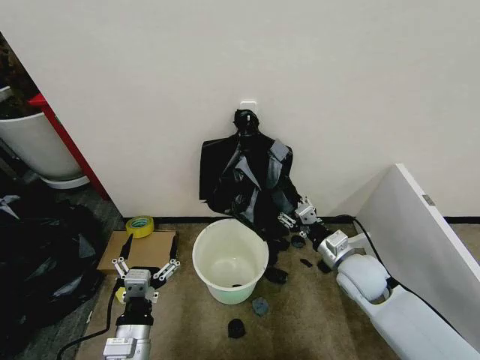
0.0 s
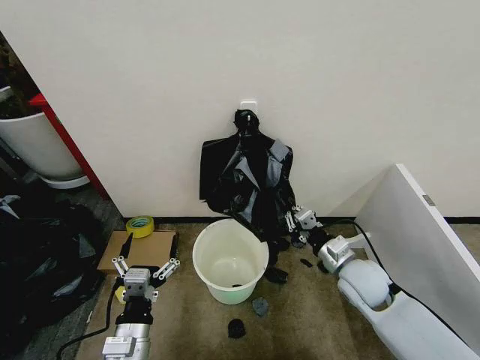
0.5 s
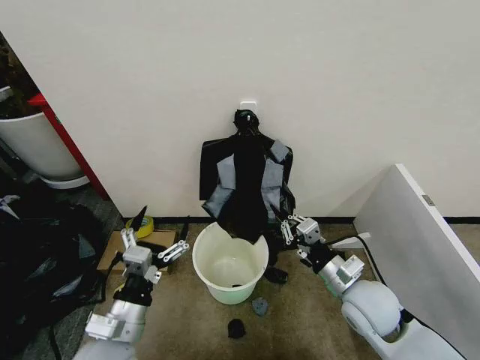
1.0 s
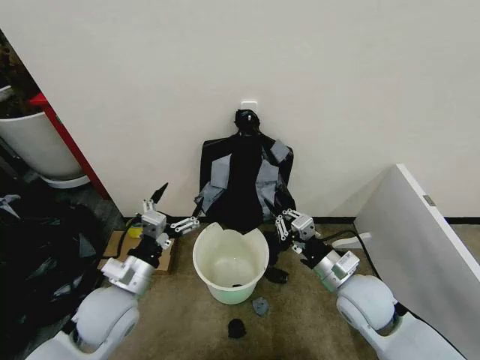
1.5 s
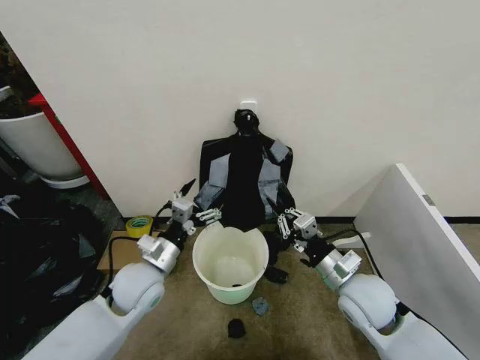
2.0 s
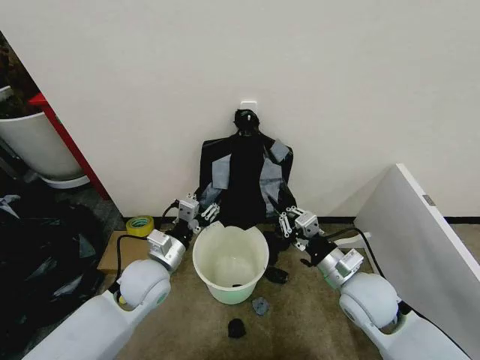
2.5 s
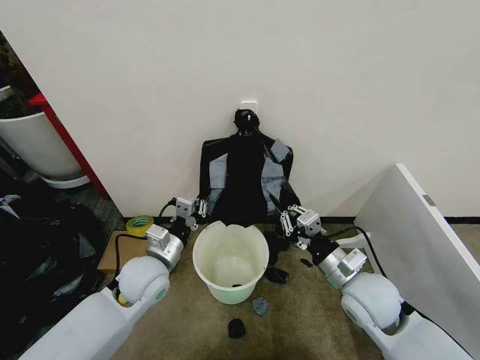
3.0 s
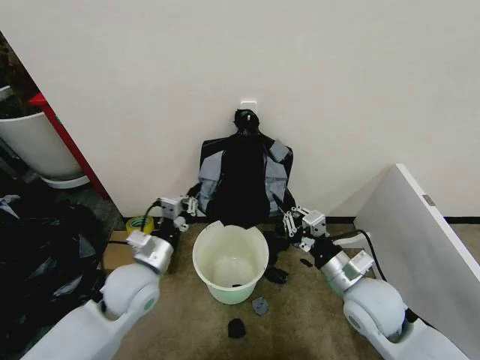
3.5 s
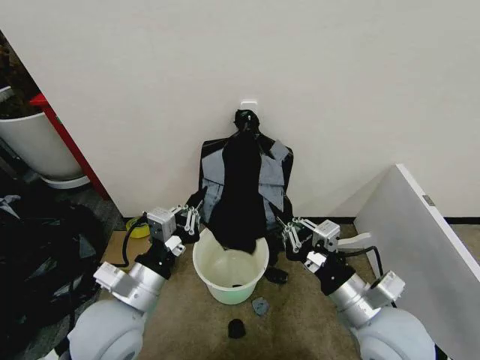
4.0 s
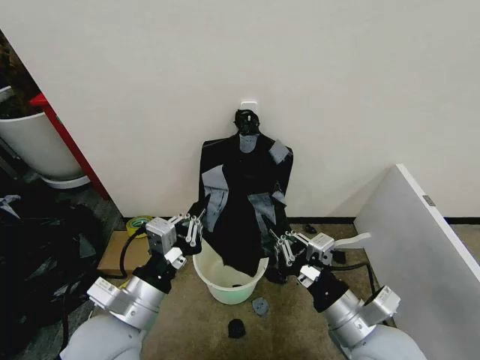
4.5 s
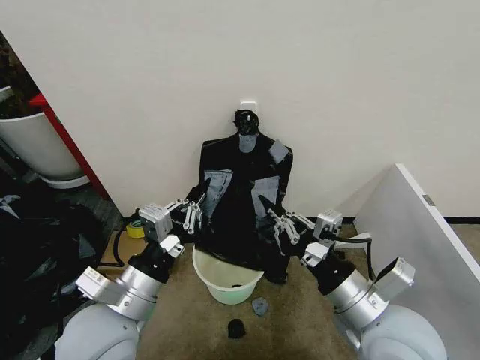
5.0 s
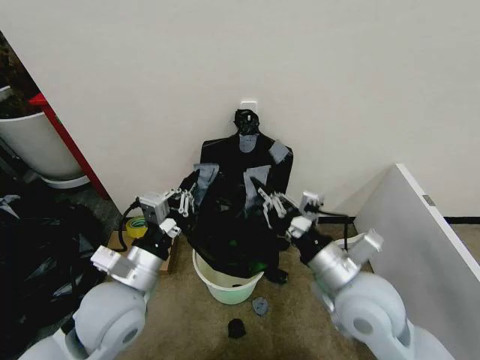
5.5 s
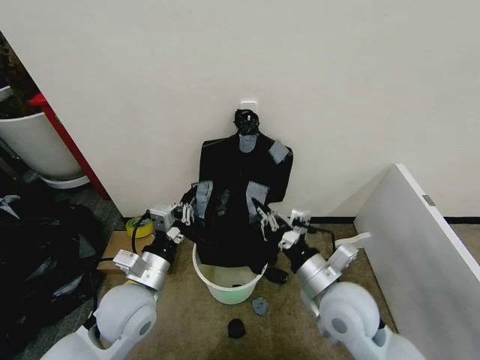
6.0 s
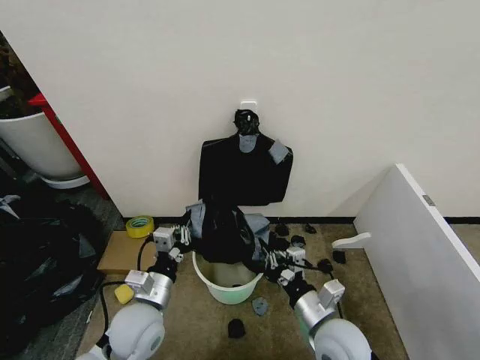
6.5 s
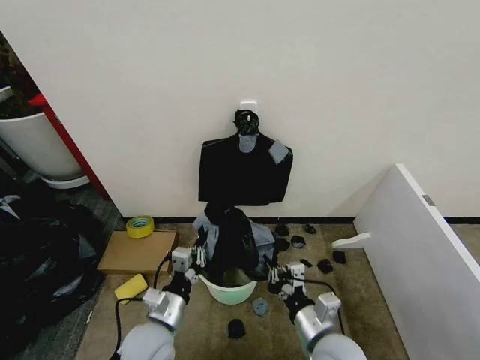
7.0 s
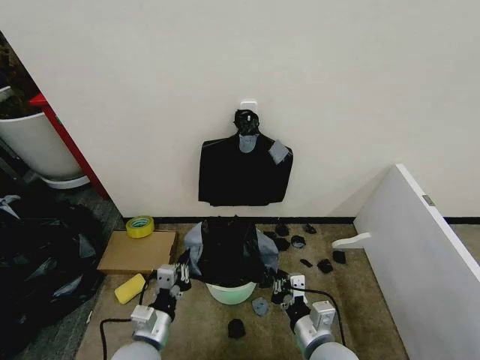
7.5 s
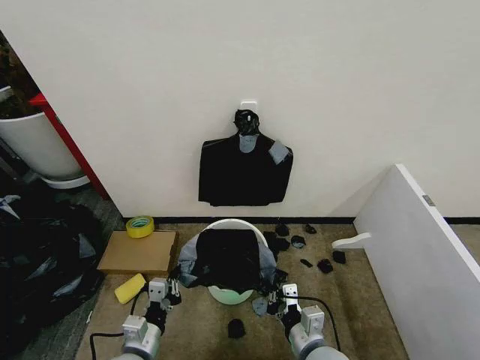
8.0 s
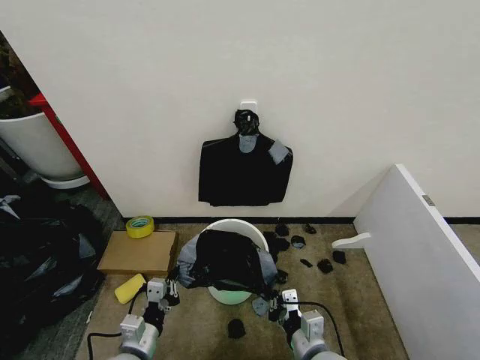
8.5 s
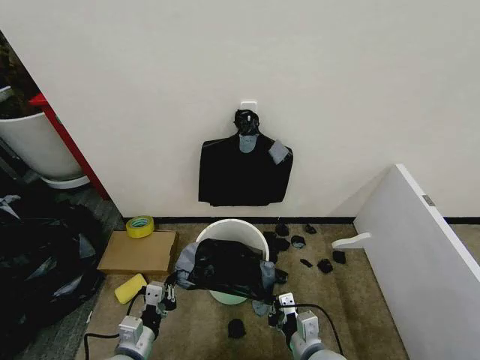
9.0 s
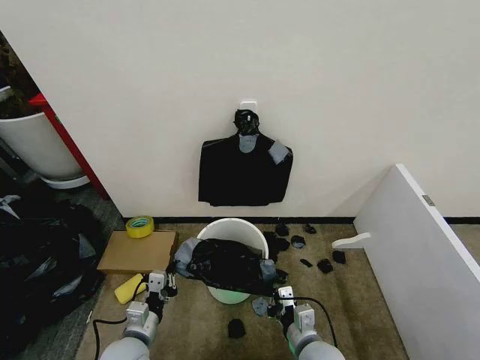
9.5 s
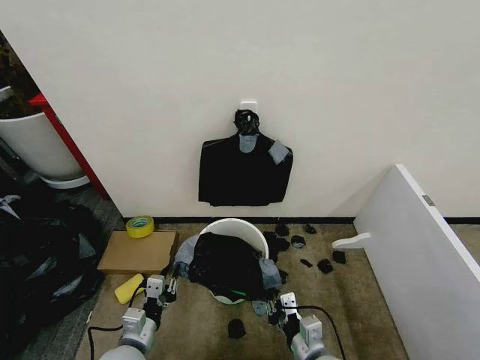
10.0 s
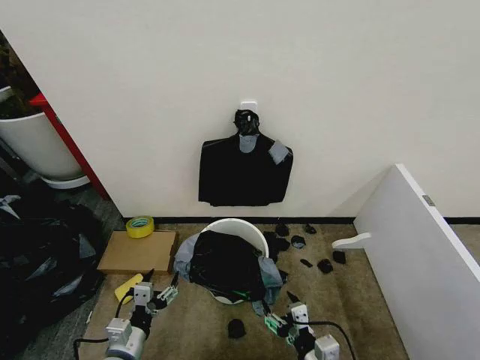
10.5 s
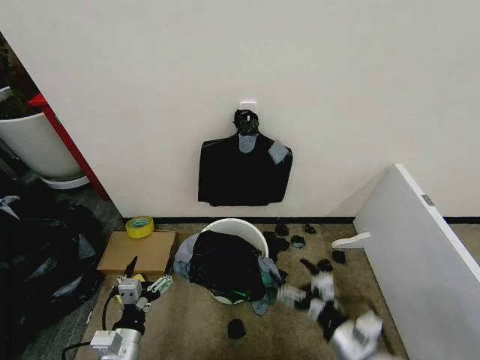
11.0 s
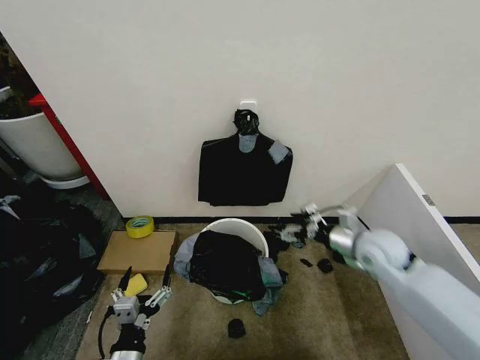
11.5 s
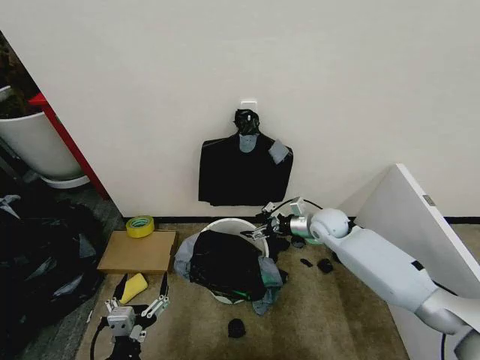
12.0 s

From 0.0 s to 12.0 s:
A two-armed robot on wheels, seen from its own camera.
Task of the whole recording: Place the garbage bag over the trash bin.
From 0.0 s to 2.0 s: The right gripper is displaced backward by roughly 5 cm, and closes, while the left gripper is displaced forward by some 15 cm.
From 2.0 s to 4.0 s: The two grippers go roughly 10 cm backward and upward. The left gripper closes.
From 4.0 s to 6.0 s: The left gripper is displaced downward and forward by about 10 cm. Meanwhile the right gripper goes approximately 5 cm forward.
From 6.0 s to 8.0 s: The grippers both shift downward and backward by approximately 15 cm.
From 8.0 s to 10.0 s: The grippers move only a little.
From 10.0 s to 12.0 s: The right gripper moves forward, roughly 35 cm, and opens up. Meanwhile the left gripper travels backward by approximately 10 cm, and opens its fingers.

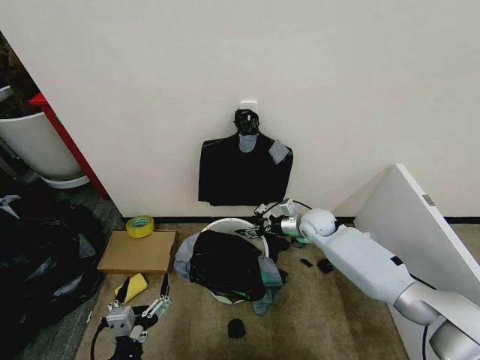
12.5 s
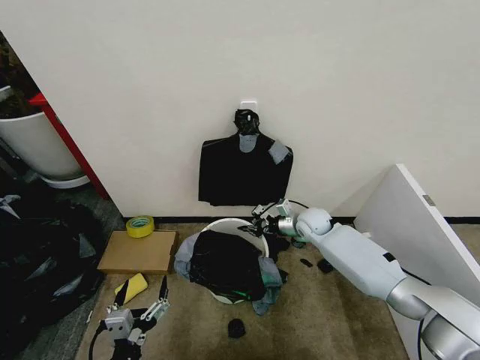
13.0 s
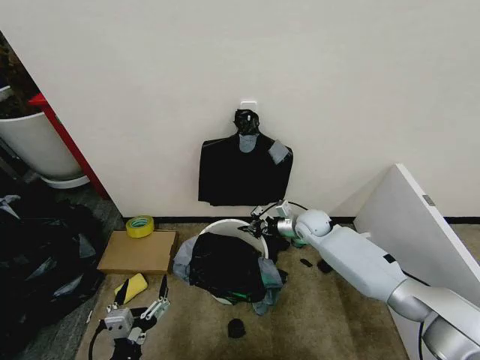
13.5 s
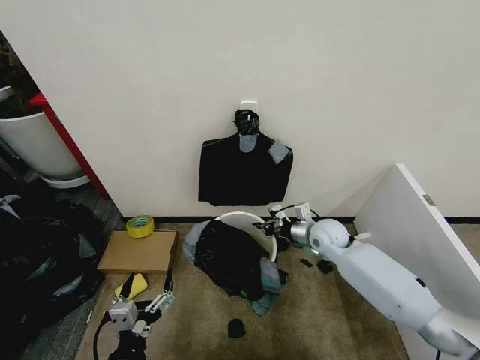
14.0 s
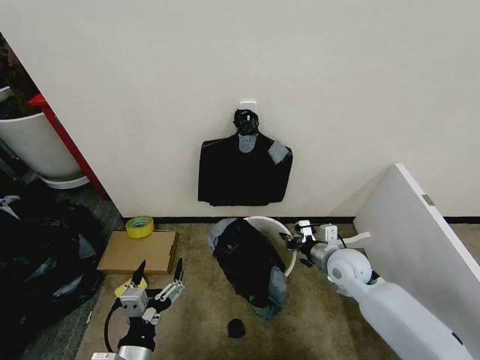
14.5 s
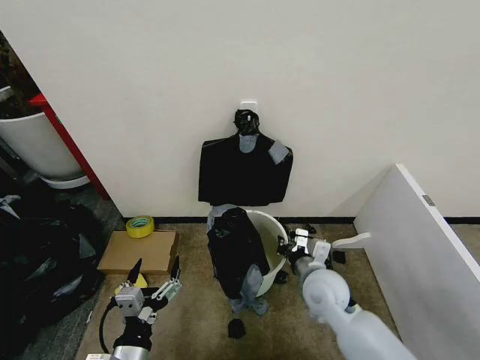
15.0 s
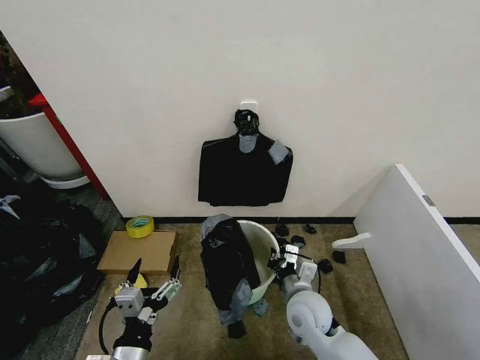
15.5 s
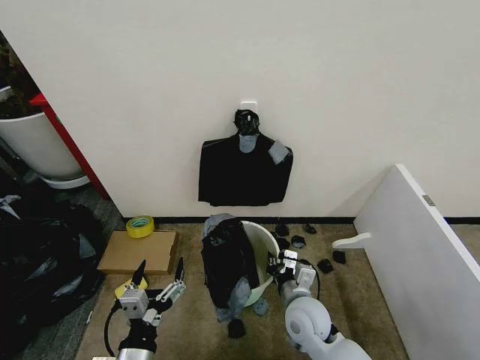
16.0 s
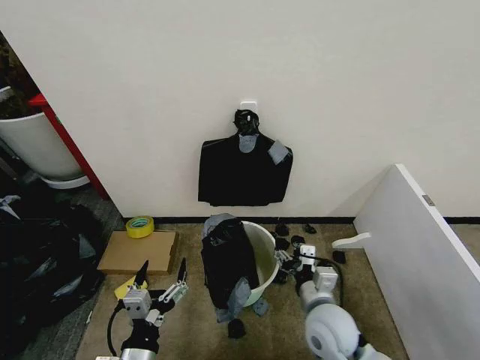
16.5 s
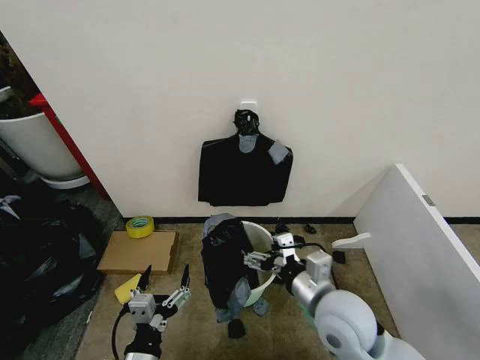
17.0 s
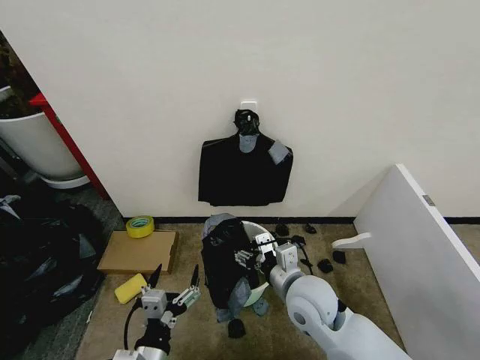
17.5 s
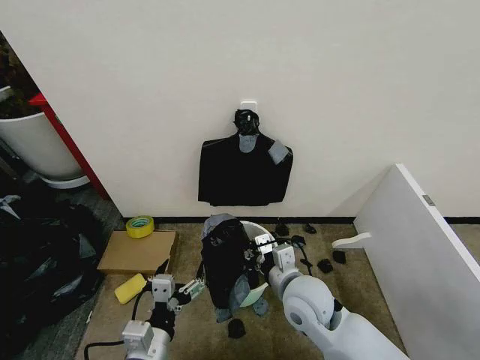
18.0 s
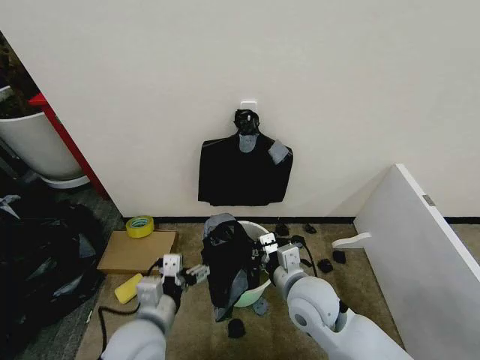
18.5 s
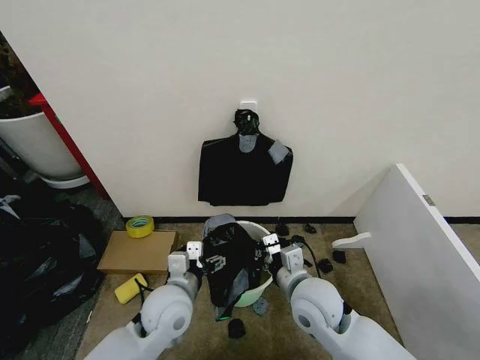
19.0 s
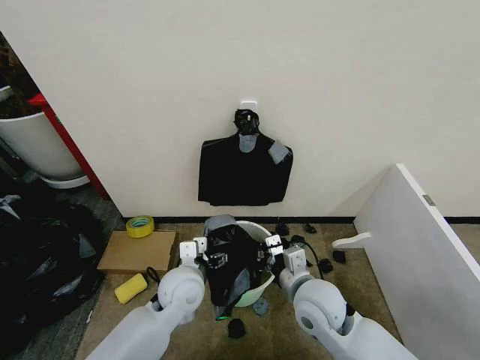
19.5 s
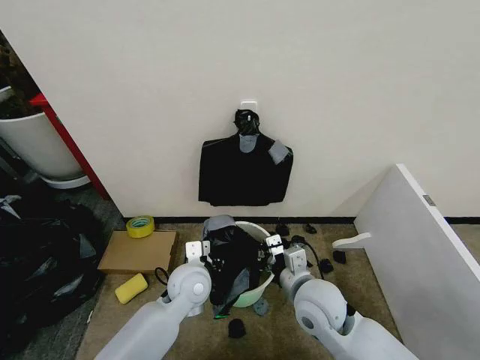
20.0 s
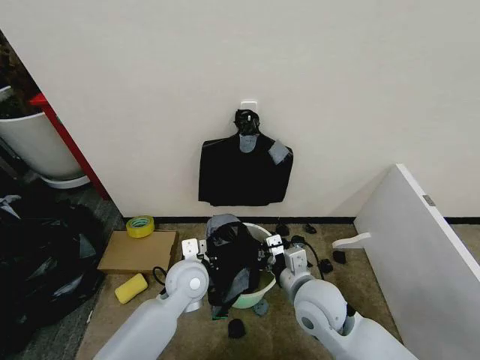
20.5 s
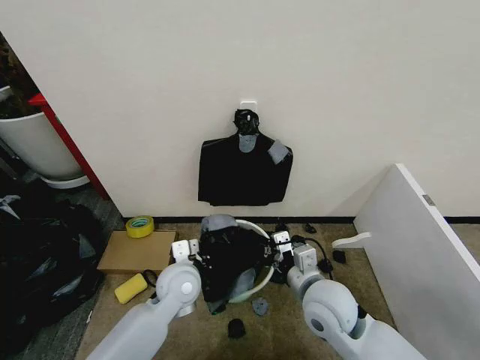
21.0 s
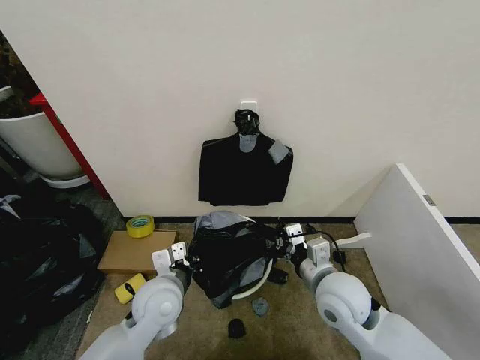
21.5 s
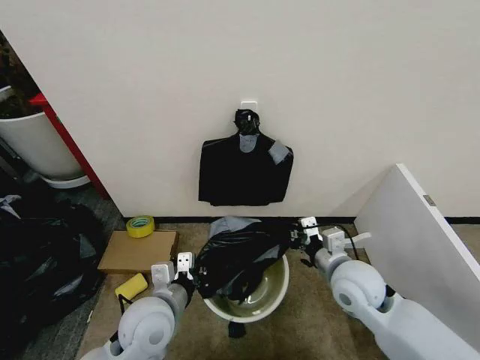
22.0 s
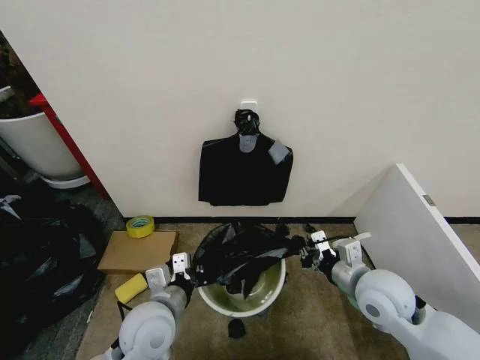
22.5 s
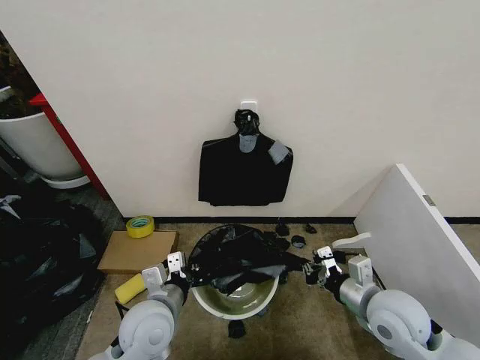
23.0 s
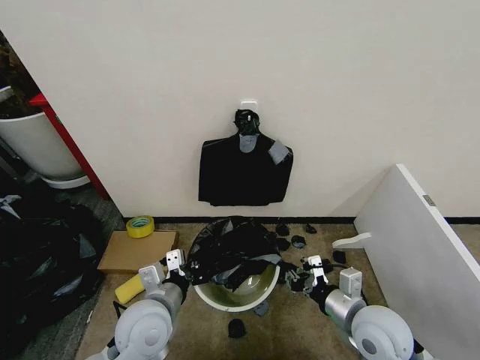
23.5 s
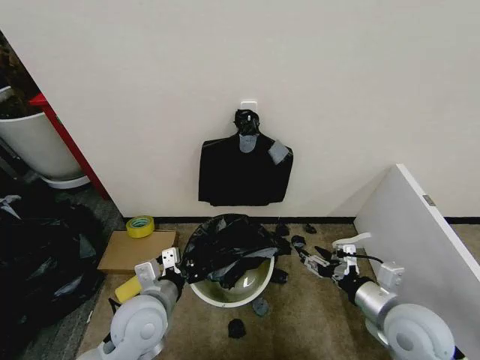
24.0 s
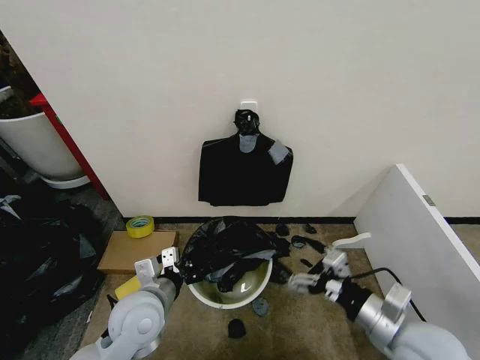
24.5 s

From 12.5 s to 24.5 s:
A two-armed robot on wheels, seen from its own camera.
Task of the whole recording: Place the garbage bag over the trash bin.
From 12.5 s to 14.5 s: The right gripper heads backward, covering approximately 15 cm, and closes up.
From 14.5 s to 16.5 s: The right gripper is displaced backward and to the left by about 15 cm, and opens.
From 16.5 s to 18.5 s: The left gripper is displaced forward by about 10 cm. The right gripper heads upward, covering about 5 cm, and closes its fingers.
From 18.5 s to 20.5 s: The left gripper goes some 15 cm forward and to the right, and closes up.
From 20.5 s to 22.5 s: The left gripper is displaced backward and to the left by approximately 10 cm. Meanwhile the right gripper heads to the right, covering some 10 cm.
From 22.5 s to 24.5 s: The right gripper shifts approximately 10 cm backward, and opens up.

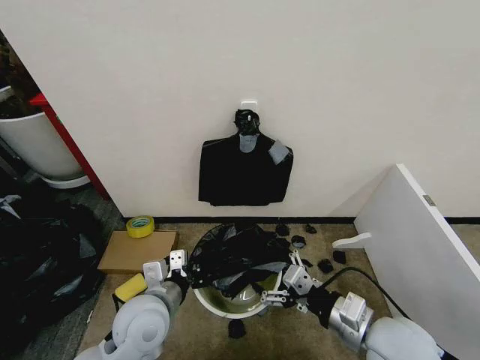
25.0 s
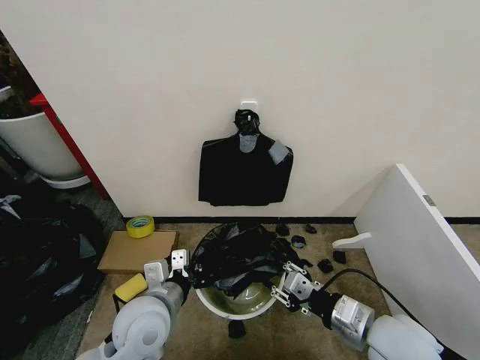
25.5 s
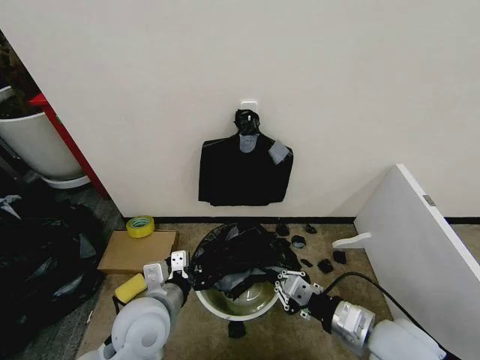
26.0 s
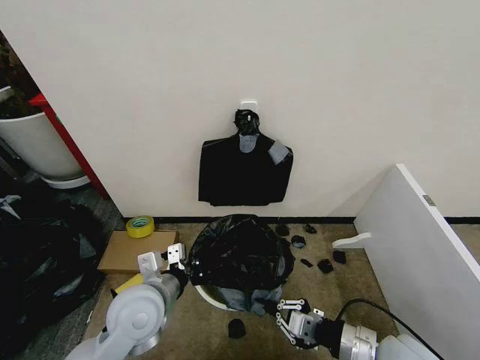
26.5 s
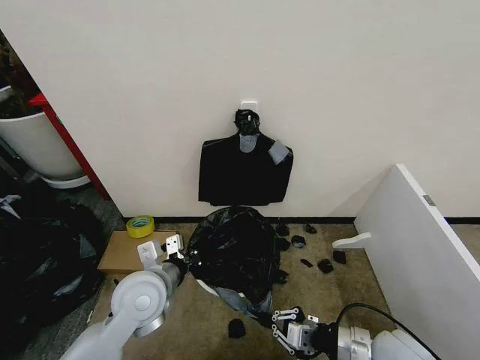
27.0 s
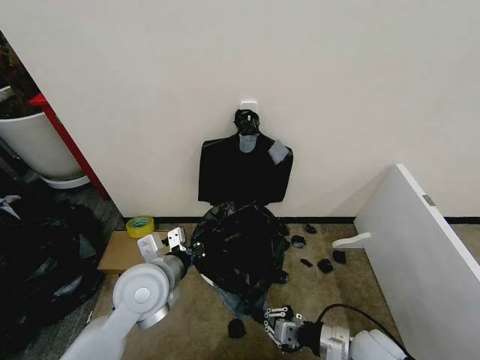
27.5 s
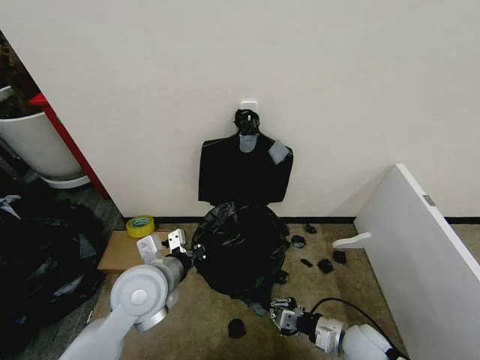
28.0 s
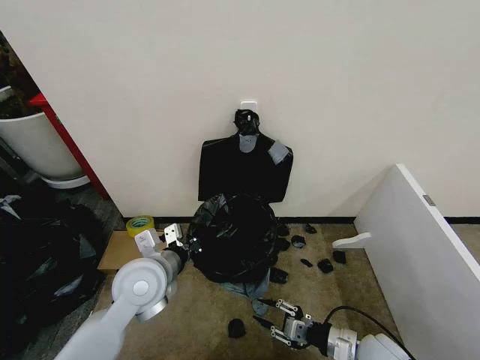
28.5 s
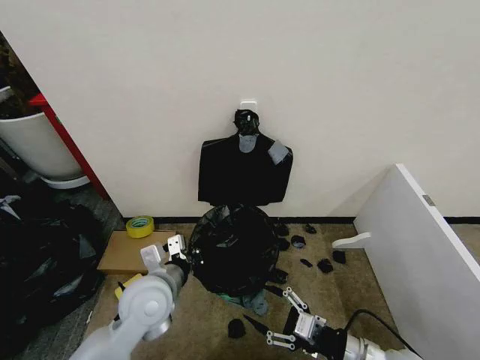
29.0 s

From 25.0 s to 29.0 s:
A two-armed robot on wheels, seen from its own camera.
Task of the whole recording: Place the garbage bag over the trash bin.
From 25.0 s to 27.0 s: The right gripper moves downward, approximately 10 cm, and closes.
From 27.0 s to 29.0 s: The right gripper travels downward and back again, some 10 cm each way, and opens up.
